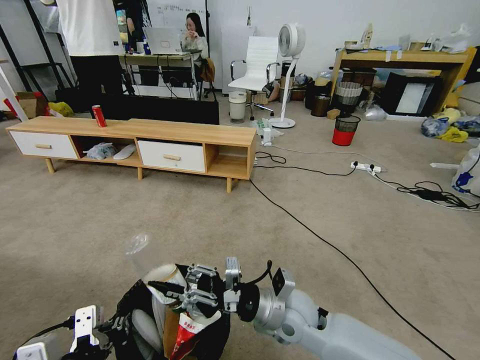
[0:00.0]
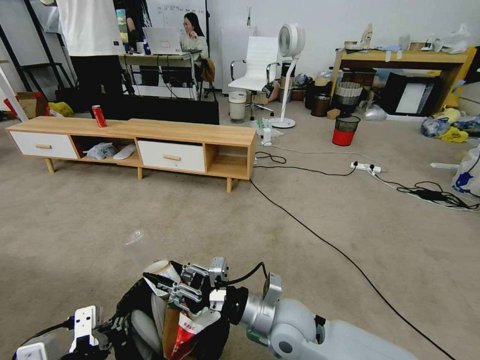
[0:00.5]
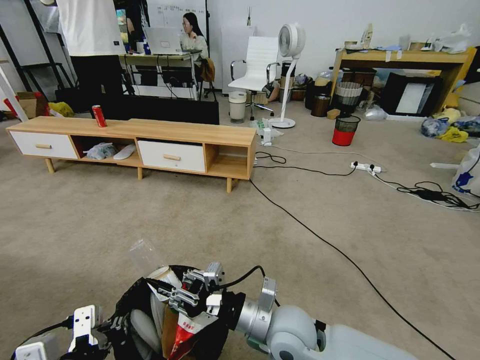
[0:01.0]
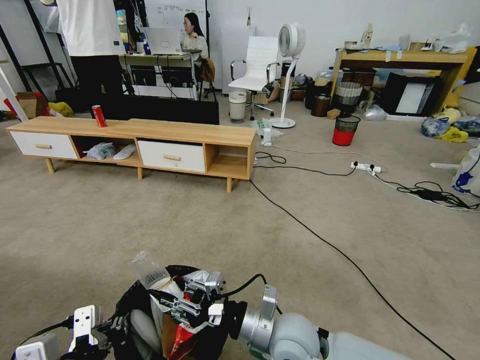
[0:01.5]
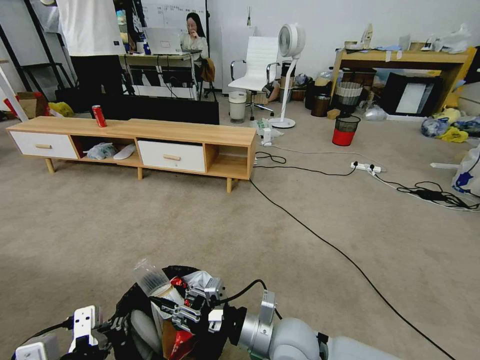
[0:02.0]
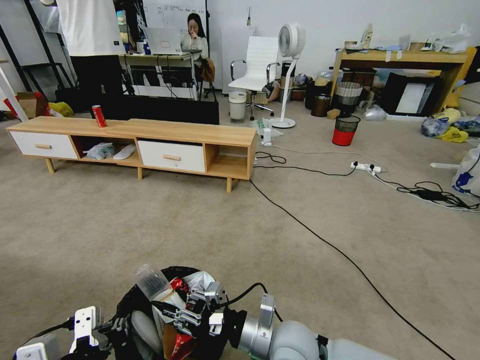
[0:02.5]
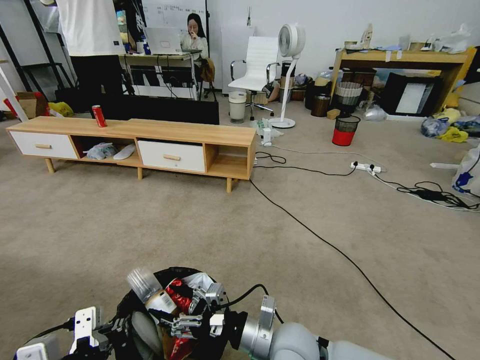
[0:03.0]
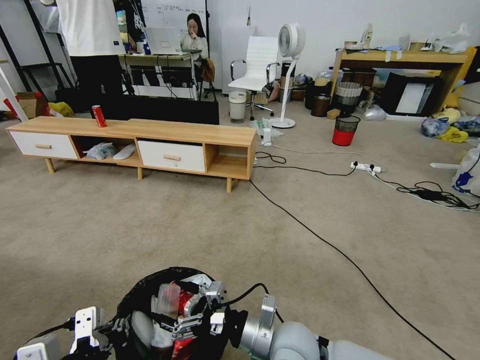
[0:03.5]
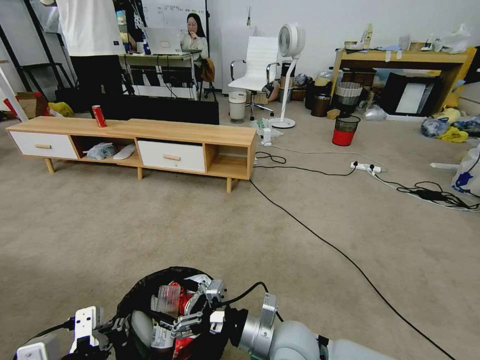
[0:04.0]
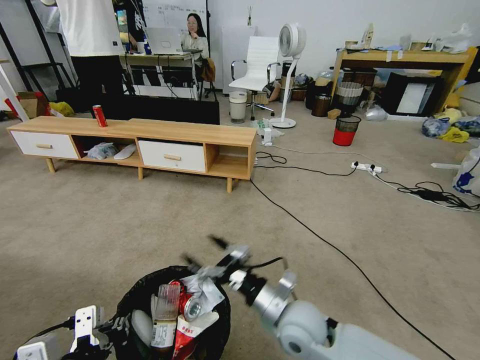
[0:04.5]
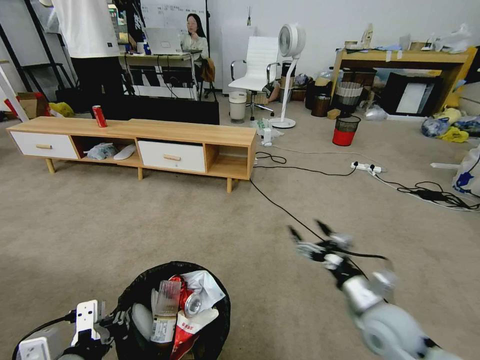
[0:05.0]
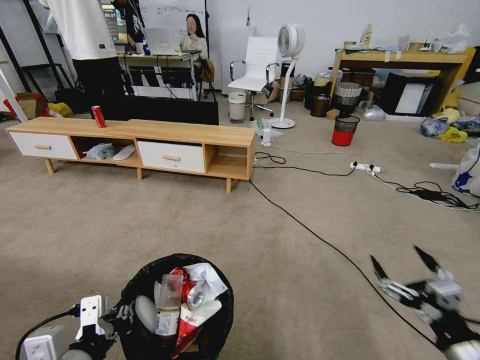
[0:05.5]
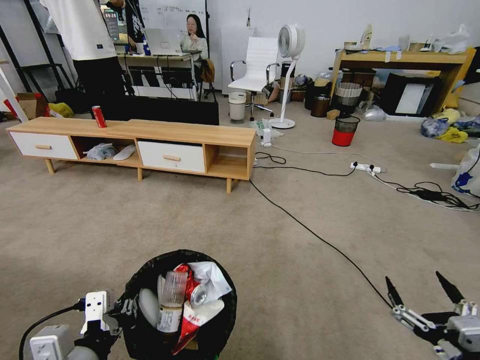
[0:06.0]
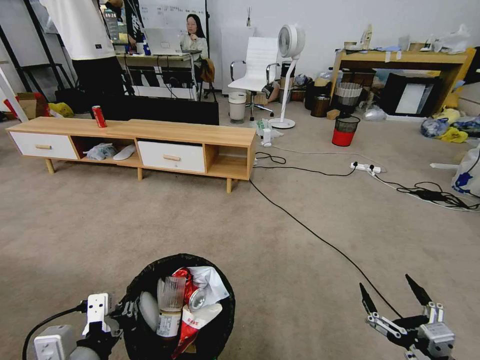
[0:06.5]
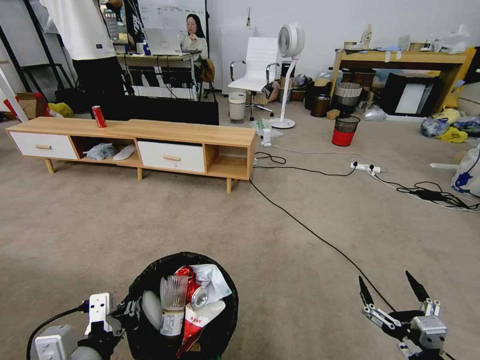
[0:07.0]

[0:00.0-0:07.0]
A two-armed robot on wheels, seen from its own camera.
Task of the whole recording: Pick up the trash bin and place the garbage on the floor into it.
0:00.0 to 0:02.0: The right gripper moves backward, about 5 cm.
0:02.0 to 0:03.5: The right gripper opens.
0:03.5 to 0:05.0: The right gripper goes approximately 15 cm to the right.
0:05.0 to 0:07.0: The right gripper is displaced backward by some 20 cm.
